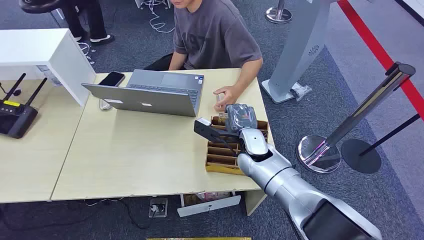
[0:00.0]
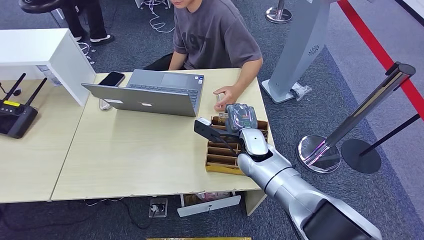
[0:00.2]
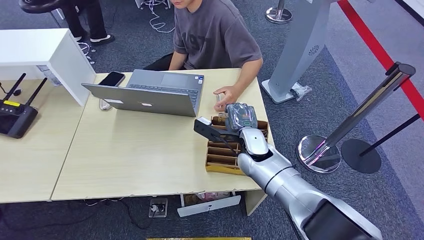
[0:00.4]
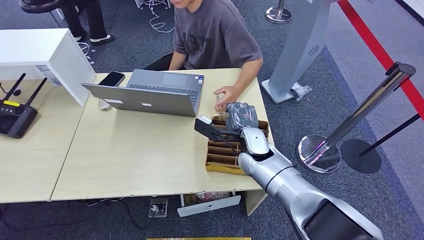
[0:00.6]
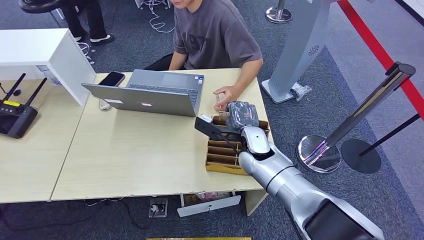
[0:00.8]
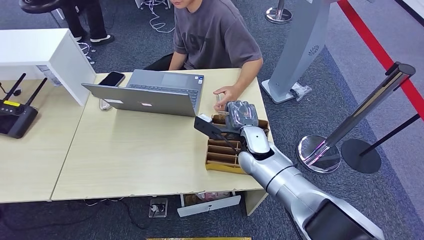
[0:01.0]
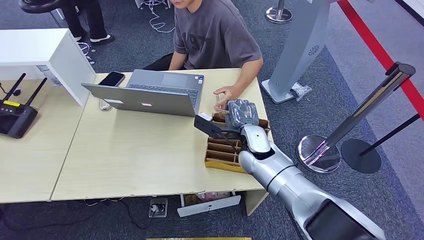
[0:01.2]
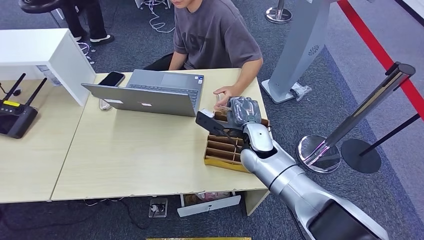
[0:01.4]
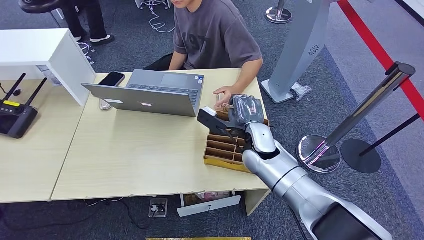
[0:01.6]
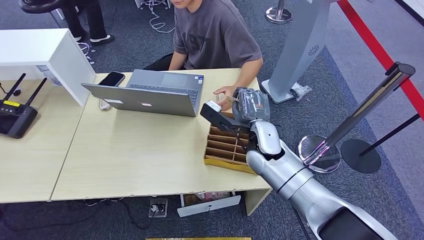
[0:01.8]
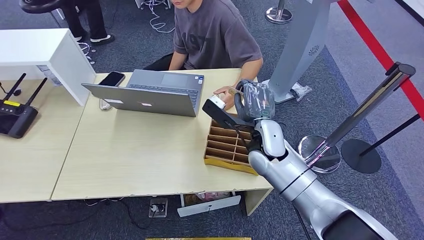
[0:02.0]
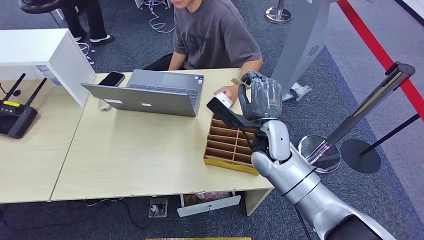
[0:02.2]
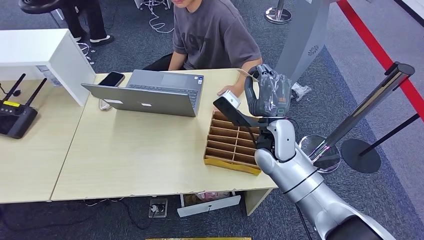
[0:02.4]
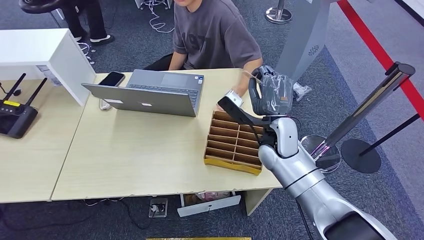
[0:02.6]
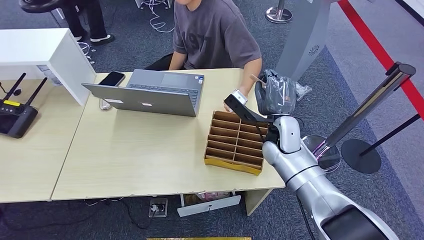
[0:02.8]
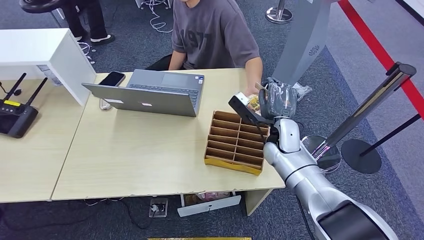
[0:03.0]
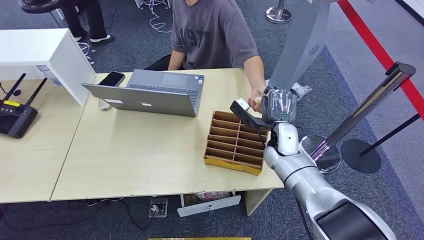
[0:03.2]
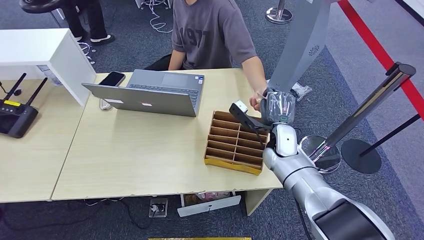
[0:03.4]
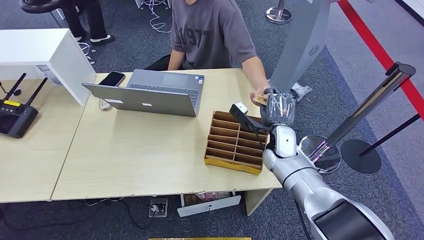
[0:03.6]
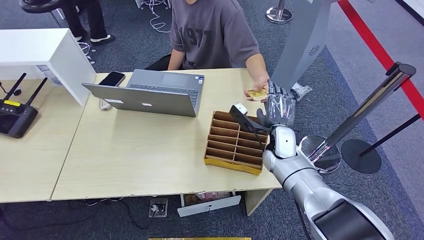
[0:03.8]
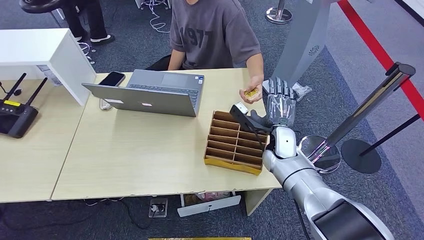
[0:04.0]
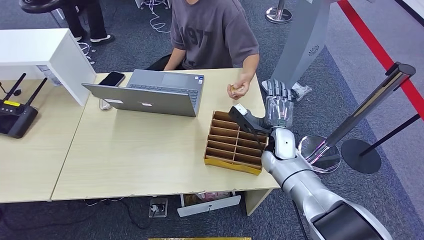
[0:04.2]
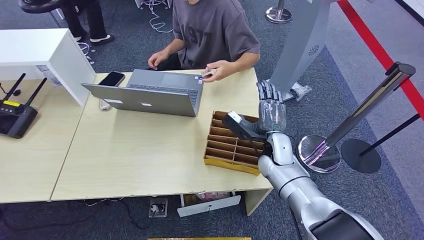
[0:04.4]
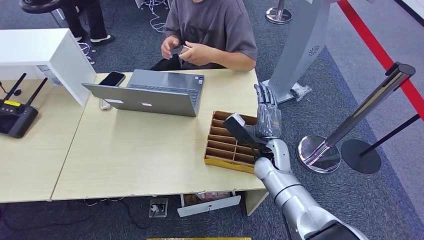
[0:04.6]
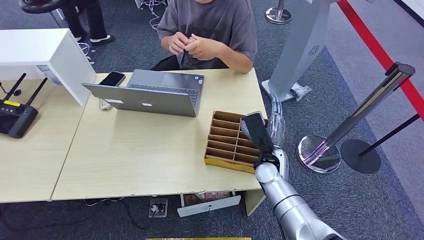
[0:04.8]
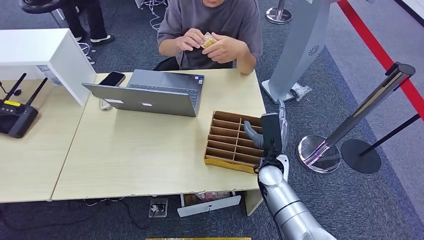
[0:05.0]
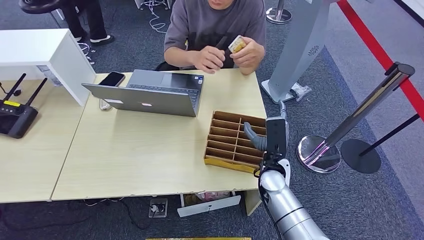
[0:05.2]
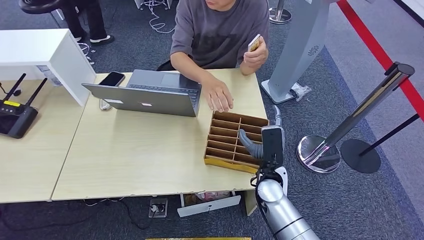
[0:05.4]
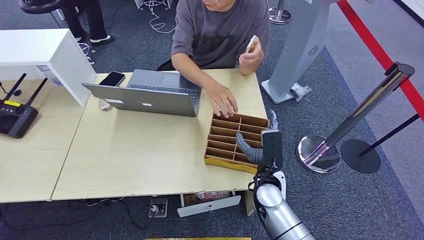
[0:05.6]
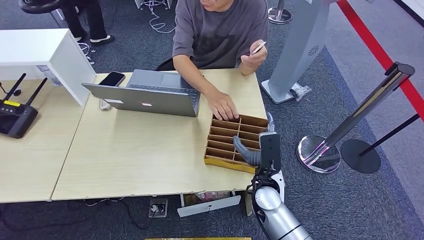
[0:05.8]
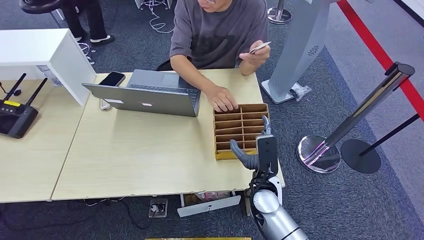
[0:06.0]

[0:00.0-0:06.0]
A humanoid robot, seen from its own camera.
Task of the whole recording: Pick up the card and hand it to the target person.
Step, 0:00.0 to 0:02.2: Pick up the key card from the card box.
Step, 0:02.4 to 0:06.0: Hand the key card to the target.
0:01.6 to 0:03.0: The right hand shifts about 5 cm to the right.
0:03.0 to 0:04.4: There are only small adjustments of the hands.
0:04.4 to 0:06.0: The right hand moves backward, about 10 cm.
